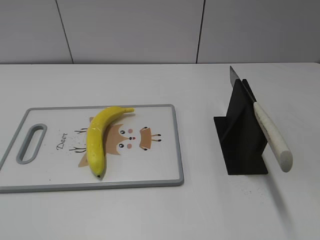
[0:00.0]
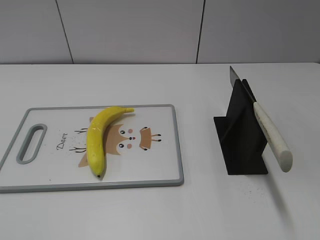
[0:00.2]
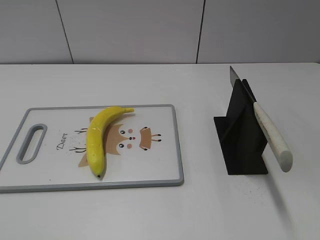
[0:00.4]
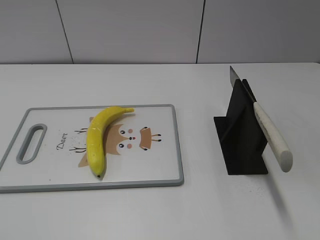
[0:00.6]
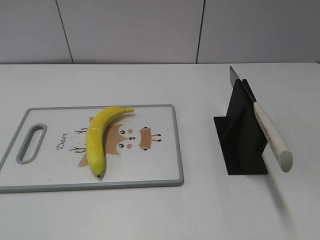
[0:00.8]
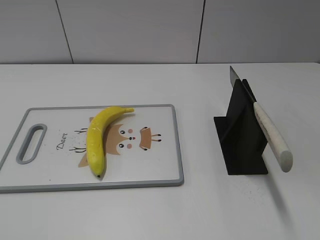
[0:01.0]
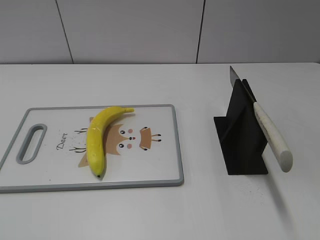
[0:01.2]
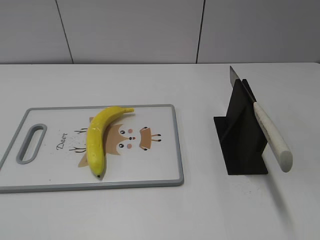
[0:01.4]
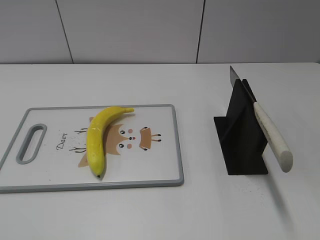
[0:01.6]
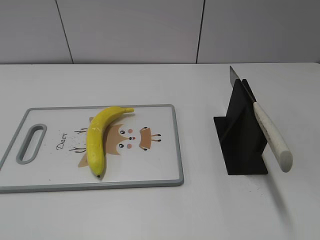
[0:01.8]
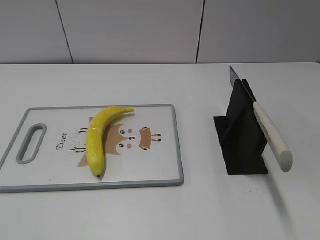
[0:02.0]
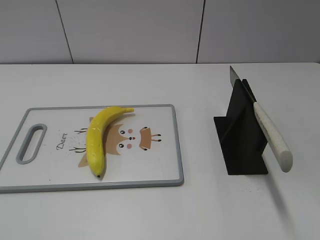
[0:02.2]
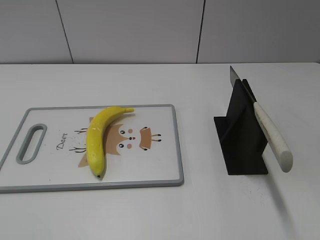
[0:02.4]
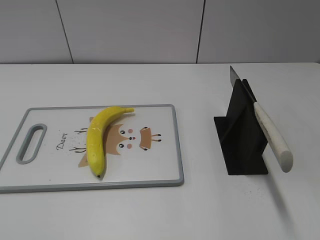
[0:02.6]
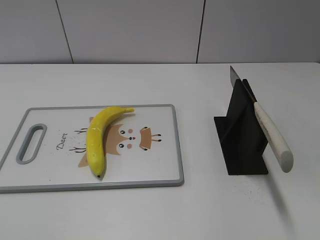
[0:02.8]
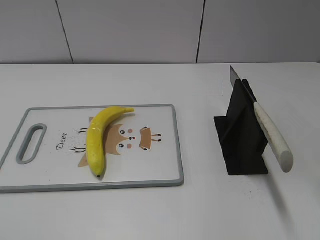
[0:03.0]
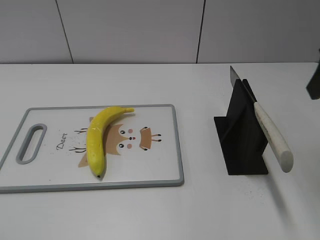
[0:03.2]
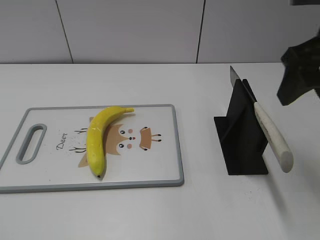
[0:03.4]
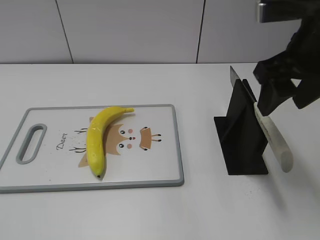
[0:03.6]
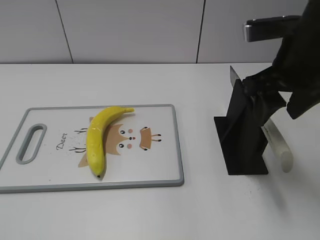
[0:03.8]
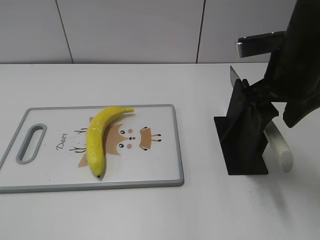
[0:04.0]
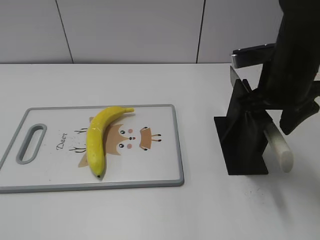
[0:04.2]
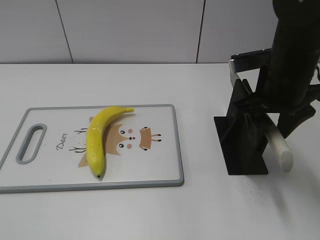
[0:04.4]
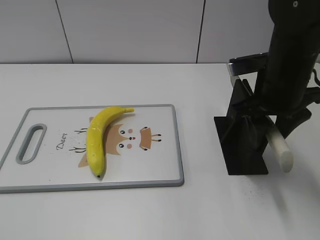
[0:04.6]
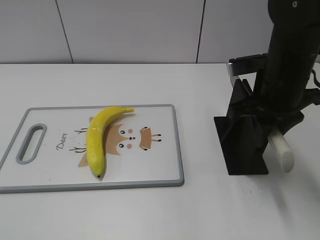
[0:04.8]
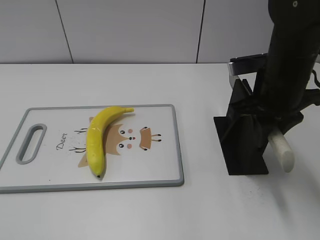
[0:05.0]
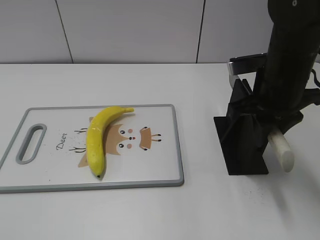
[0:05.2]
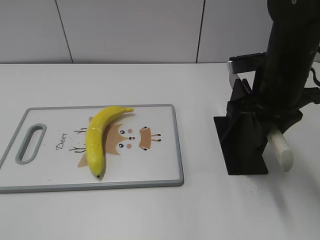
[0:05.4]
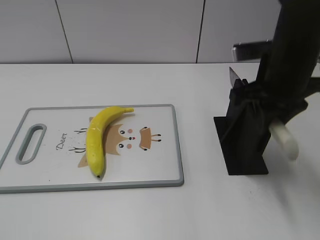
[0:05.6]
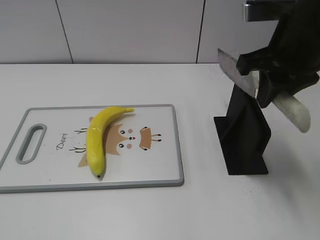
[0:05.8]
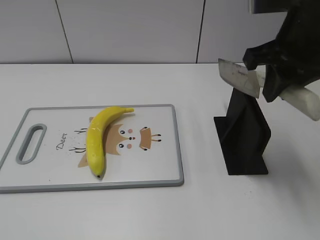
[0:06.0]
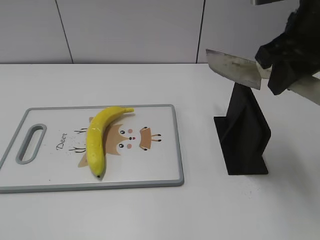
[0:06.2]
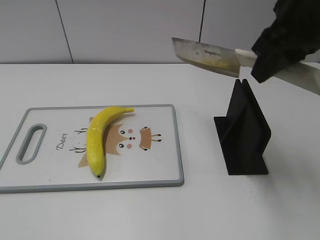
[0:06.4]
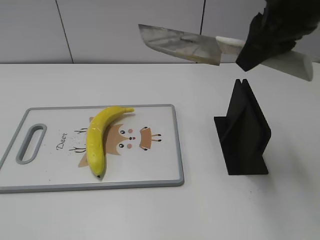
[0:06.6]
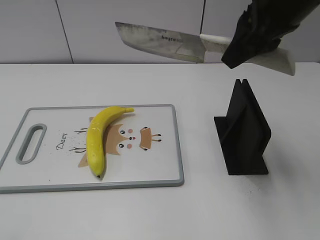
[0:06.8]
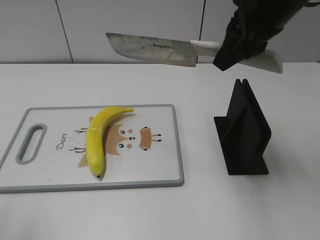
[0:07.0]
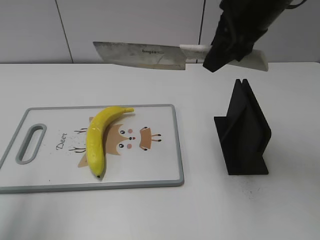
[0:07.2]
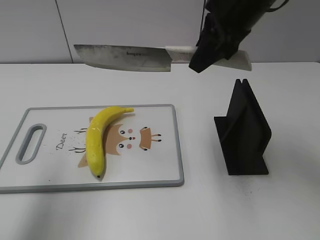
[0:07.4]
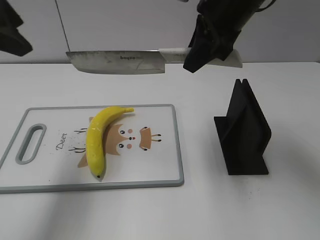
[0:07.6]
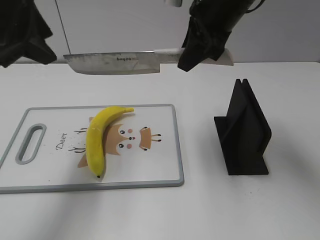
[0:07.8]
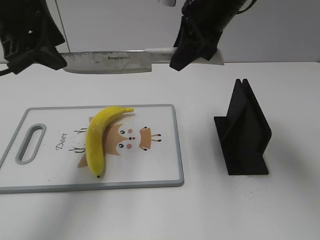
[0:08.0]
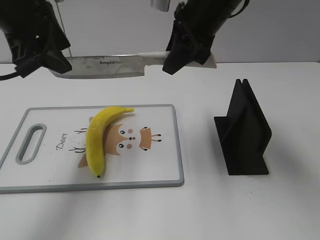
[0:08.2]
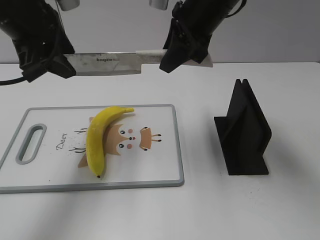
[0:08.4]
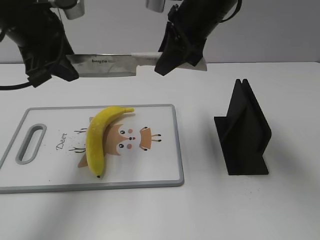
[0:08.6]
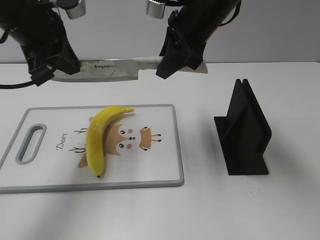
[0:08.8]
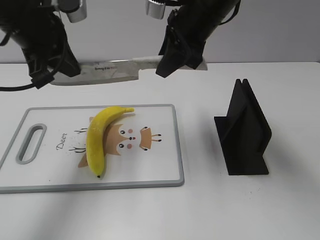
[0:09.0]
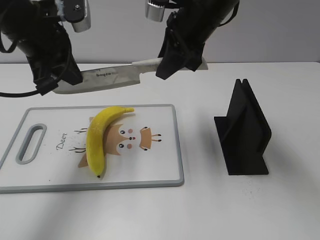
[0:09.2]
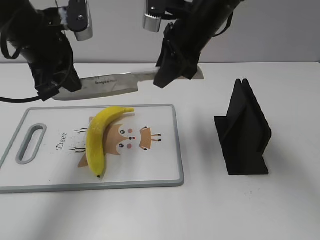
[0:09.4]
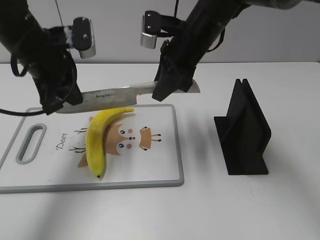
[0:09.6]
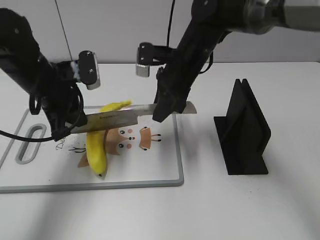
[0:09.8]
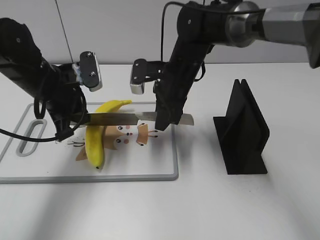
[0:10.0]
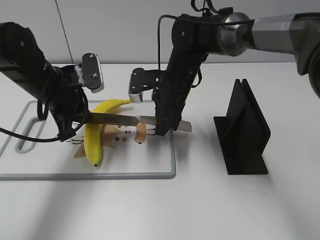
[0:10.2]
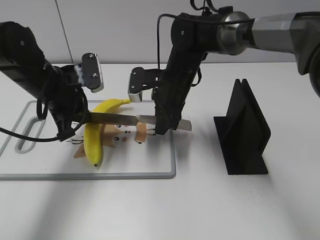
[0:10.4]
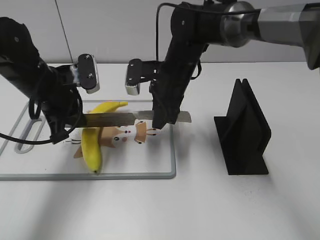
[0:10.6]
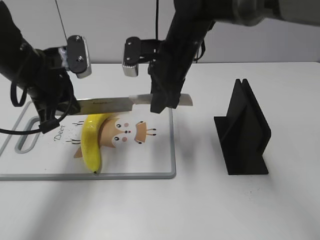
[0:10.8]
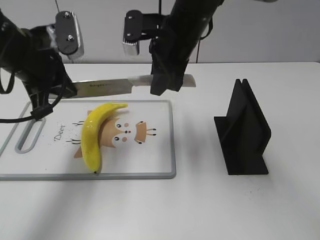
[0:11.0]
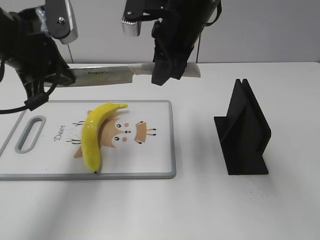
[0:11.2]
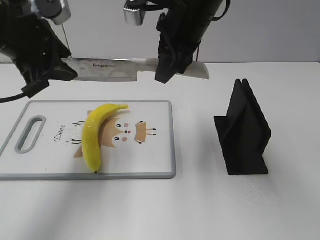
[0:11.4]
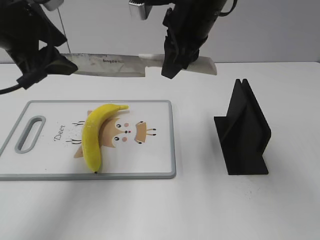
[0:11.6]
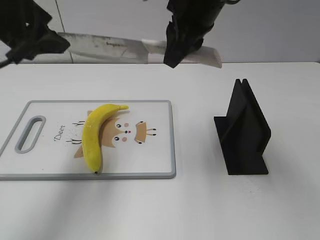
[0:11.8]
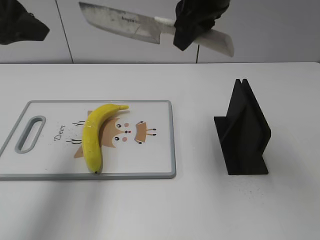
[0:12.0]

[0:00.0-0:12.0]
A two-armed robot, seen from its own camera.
Task of the whole recording: cut plastic banana.
Step, 0:00.0 to 0:06.0: Grab the knife handle with your right hand.
Step, 0:06.4 to 0:11.0: Lift the knife with your right hand.
0:03.0 to 0:04.4: The right gripper travels downward, to the left and forward by some 15 cm.
0:04.4 to 0:06.0: The right gripper travels upward by about 10 cm, and closes.
0:06.0 to 0:07.6: The left gripper travels forward by approximately 30 cm. Meanwhile the right gripper travels forward and to the left by some 10 cm.
0:07.6 to 0:09.0: The left gripper shifts some 10 cm downward and forward, and closes its fingers. Meanwhile the right gripper moves about 5 cm.
0:09.0 to 0:10.4: Both grippers travel together downward, about 15 cm.
0:10.4 to 0:12.0: The grippers both shift upward by some 20 cm. The left gripper opens up.

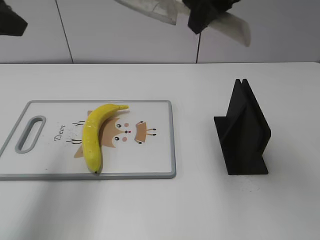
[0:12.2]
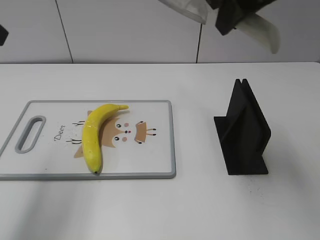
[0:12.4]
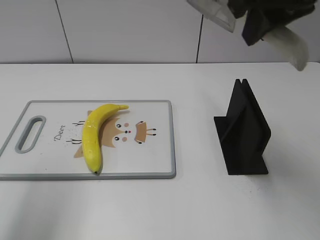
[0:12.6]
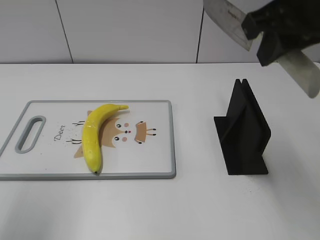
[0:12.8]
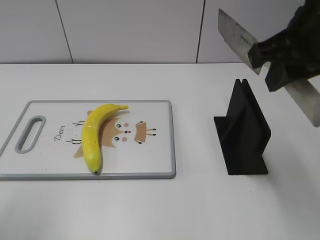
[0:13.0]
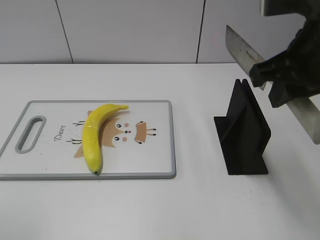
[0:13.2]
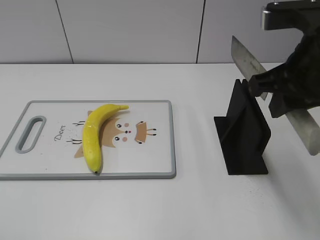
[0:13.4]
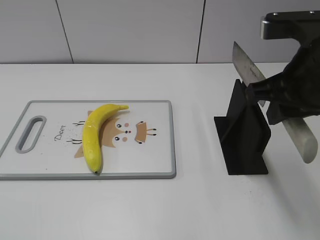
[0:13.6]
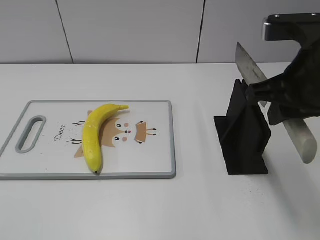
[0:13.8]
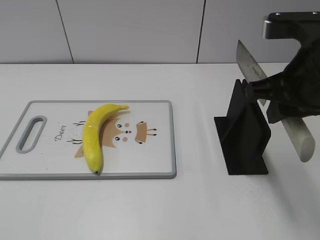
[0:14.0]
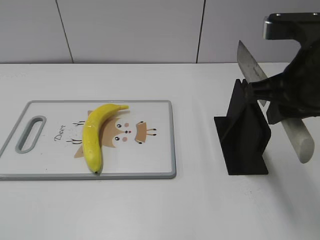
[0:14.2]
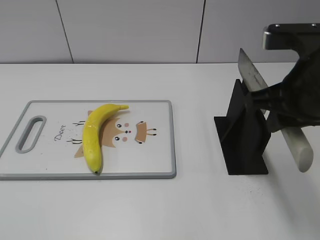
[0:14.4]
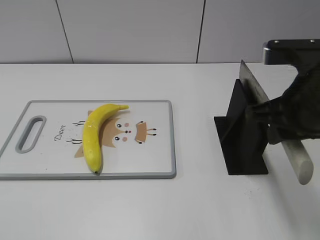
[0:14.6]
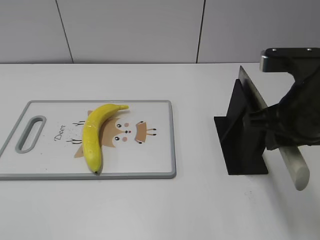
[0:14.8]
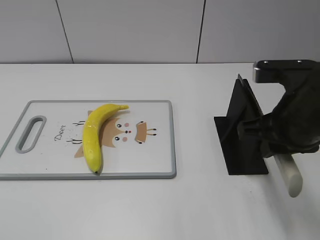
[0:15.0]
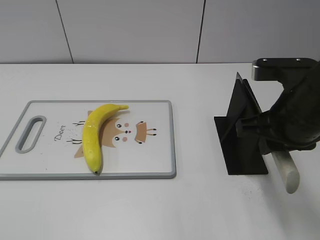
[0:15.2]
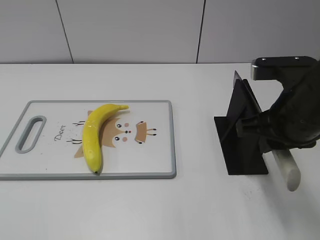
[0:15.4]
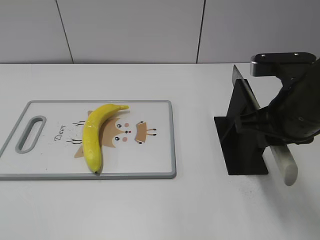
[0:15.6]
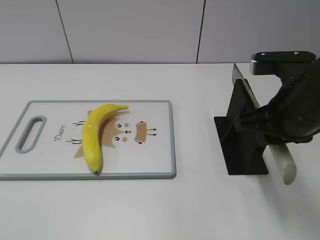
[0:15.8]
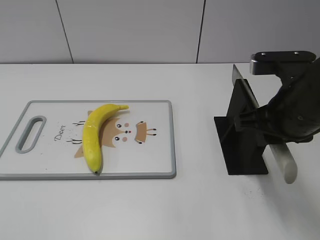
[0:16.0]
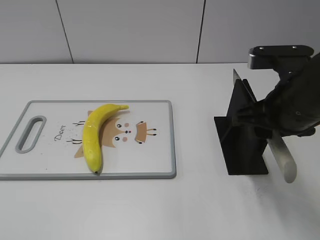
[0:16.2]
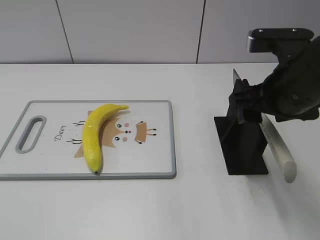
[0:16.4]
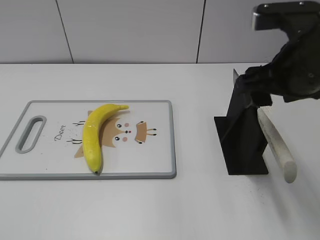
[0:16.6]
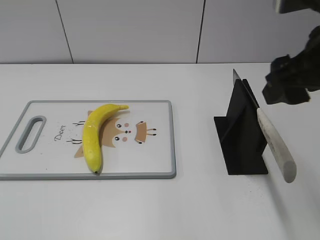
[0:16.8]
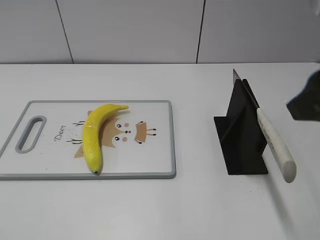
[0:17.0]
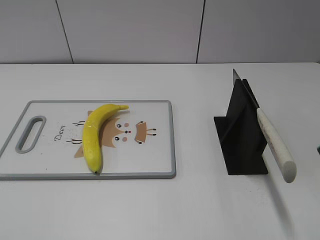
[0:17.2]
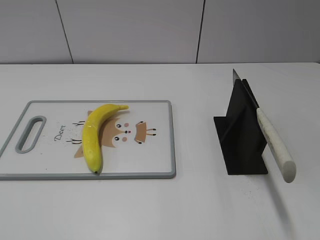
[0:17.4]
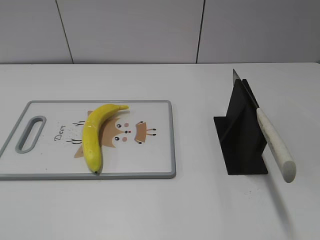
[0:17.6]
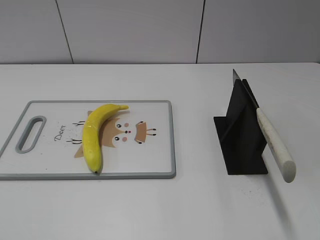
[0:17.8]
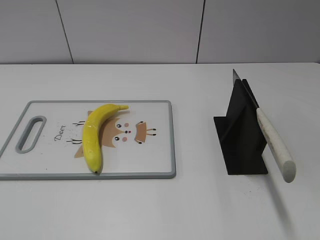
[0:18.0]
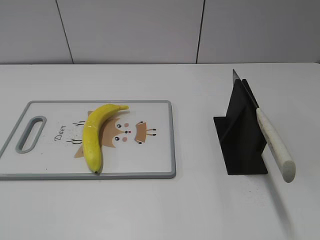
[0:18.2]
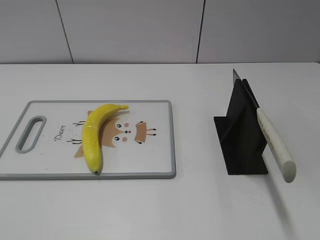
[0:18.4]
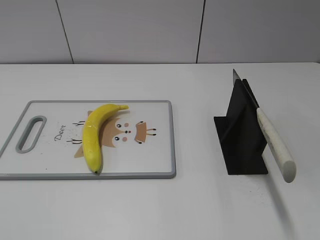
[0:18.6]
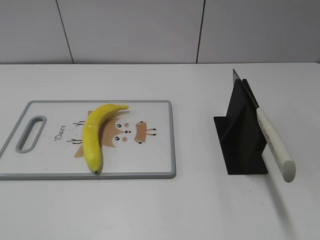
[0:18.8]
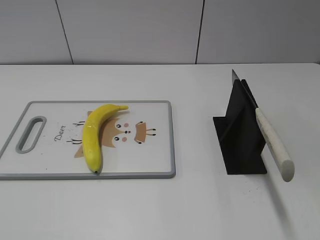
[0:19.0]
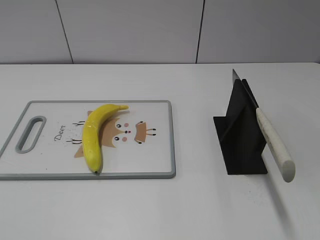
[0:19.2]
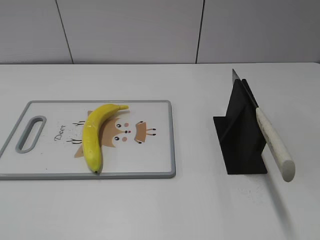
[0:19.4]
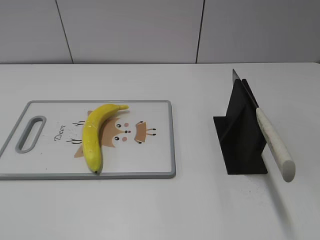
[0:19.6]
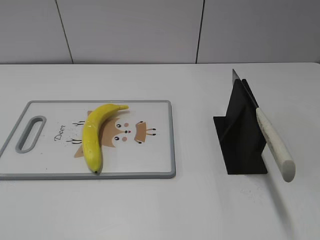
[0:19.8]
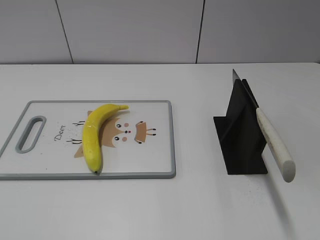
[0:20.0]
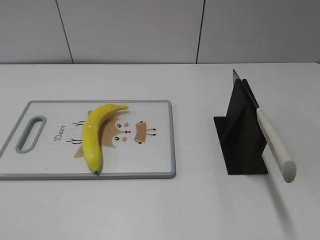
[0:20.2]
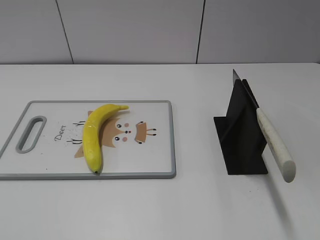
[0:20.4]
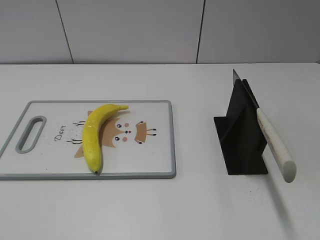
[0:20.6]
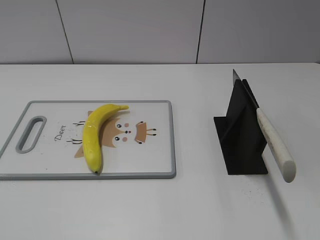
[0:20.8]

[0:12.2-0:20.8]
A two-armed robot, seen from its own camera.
Task of the whole recording: cut plastic banana.
Step, 0:12.6 to 0:14.2: Lift the knife with your right hand.
Step, 0:14.4 to 0:20.0: Place the knife on the storage rack with your right hand.
0:12.2 to 0:13.6: The right gripper heads backward, downward and to the right, covering roughly 15 cm. Meanwhile the left gripper goes approximately 20 cm backward.
0:13.6 to 0:15.0: The right gripper heads downward, covering approximately 5 cm.
0:15.0 to 0:16.6: The right gripper goes roughly 5 cm upward, and opens its fingers.
0:16.6 to 0:18.0: The right gripper is displaced backward and to the right by about 25 cm.

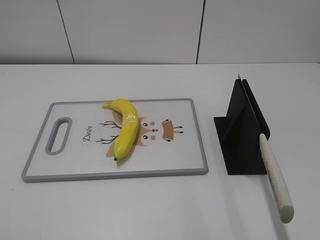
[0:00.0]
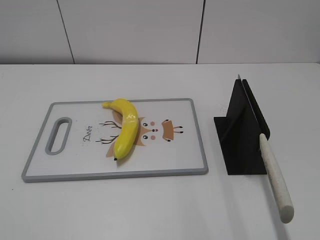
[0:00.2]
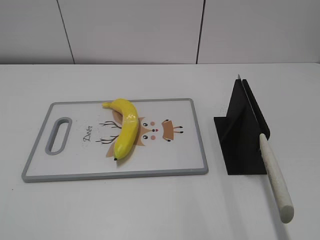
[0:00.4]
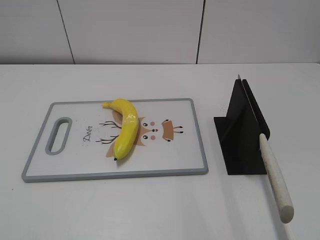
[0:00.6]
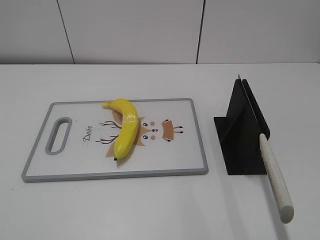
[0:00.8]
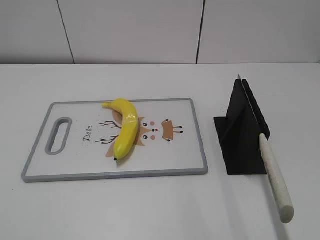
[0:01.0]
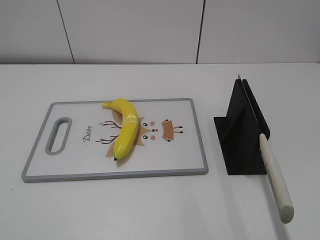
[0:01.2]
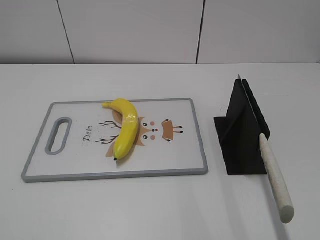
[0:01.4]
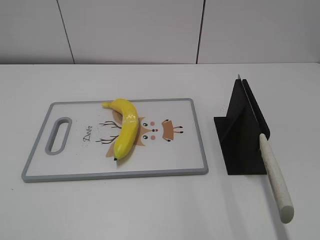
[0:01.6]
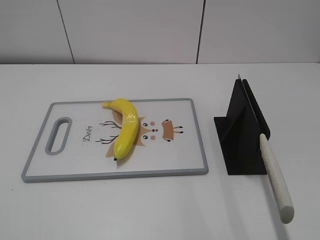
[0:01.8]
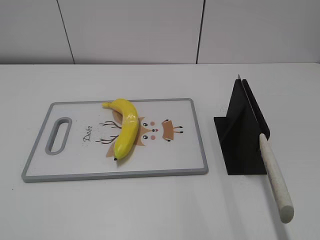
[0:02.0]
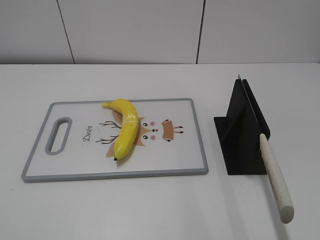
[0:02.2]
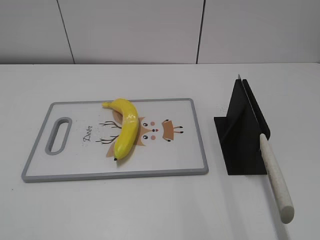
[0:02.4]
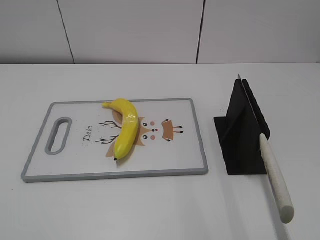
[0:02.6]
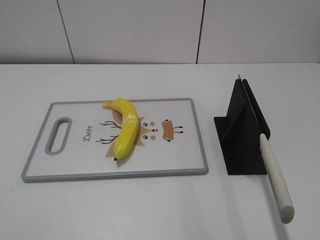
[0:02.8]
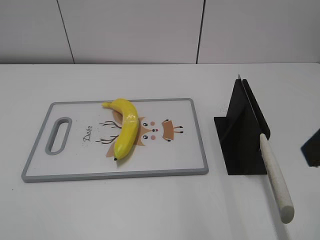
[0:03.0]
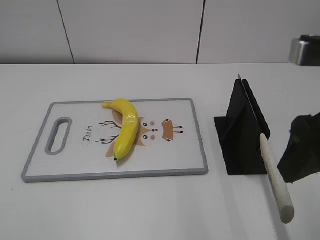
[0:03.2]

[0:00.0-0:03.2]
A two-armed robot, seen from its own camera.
Task of the whole recording: cut plastic banana.
0:01.6 to 0:03.2: The right gripper is displaced forward and to the left by about 20 cm.
